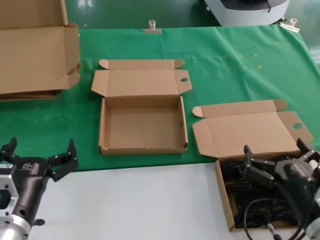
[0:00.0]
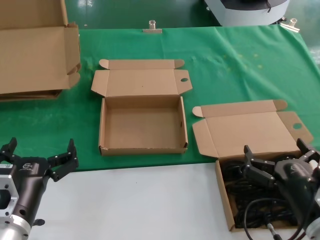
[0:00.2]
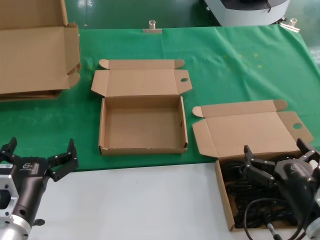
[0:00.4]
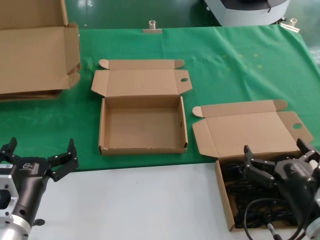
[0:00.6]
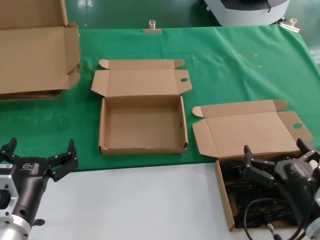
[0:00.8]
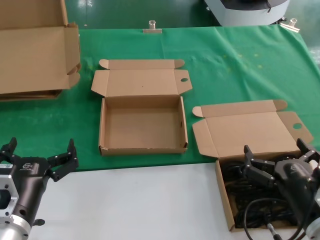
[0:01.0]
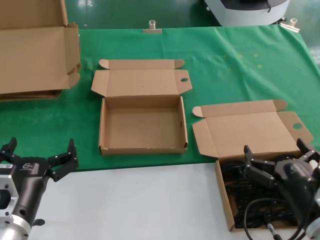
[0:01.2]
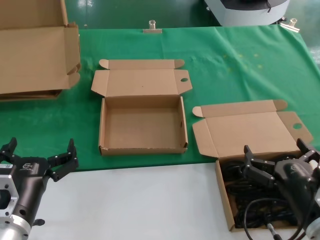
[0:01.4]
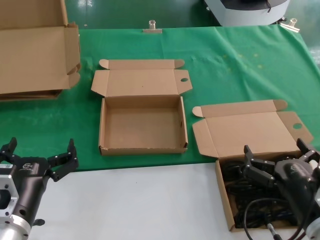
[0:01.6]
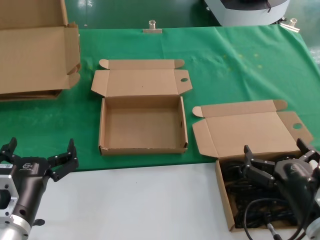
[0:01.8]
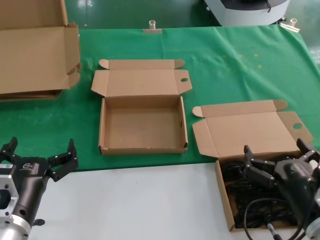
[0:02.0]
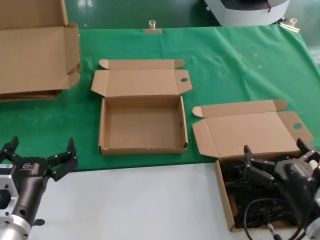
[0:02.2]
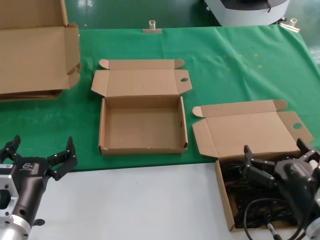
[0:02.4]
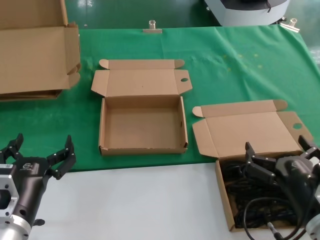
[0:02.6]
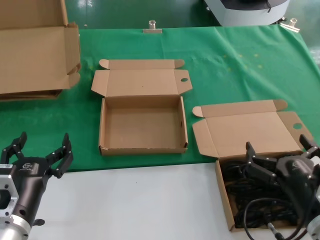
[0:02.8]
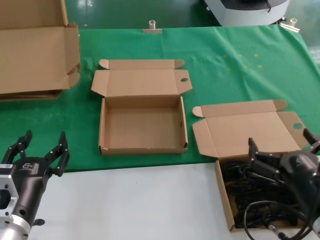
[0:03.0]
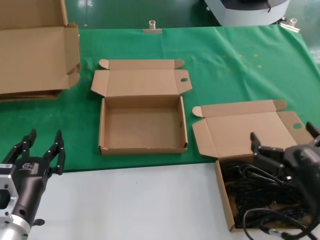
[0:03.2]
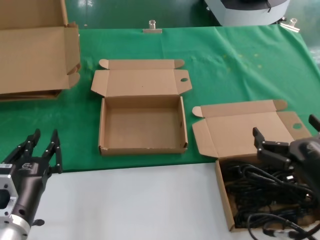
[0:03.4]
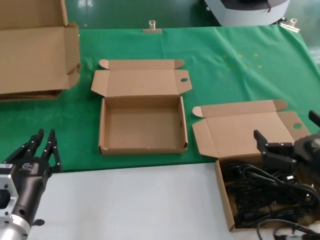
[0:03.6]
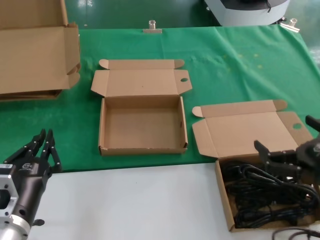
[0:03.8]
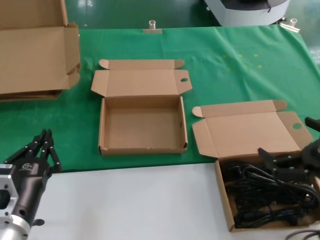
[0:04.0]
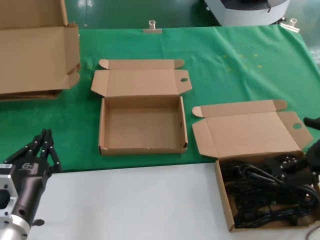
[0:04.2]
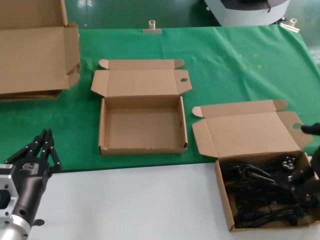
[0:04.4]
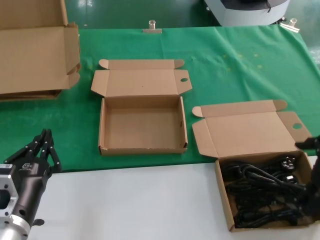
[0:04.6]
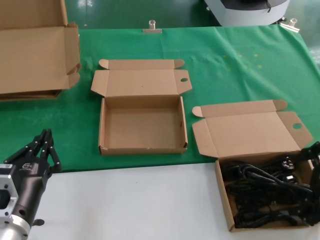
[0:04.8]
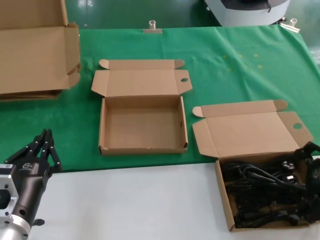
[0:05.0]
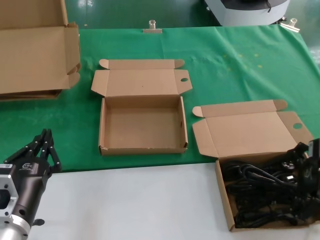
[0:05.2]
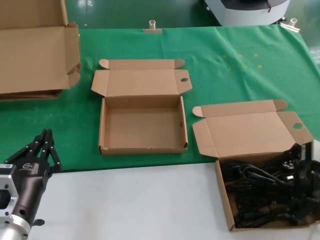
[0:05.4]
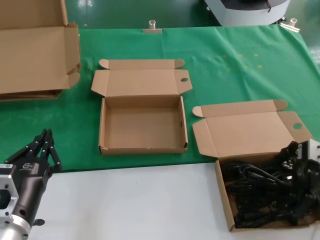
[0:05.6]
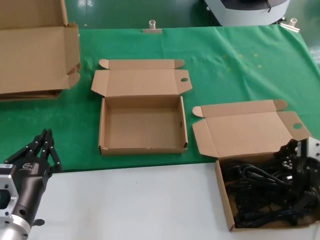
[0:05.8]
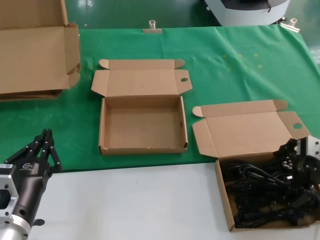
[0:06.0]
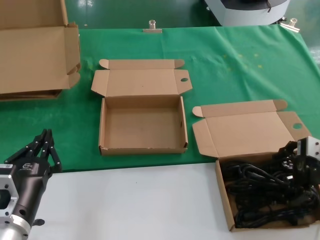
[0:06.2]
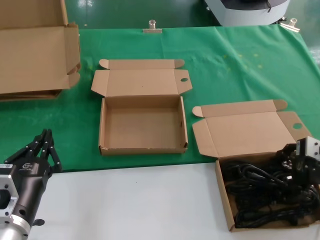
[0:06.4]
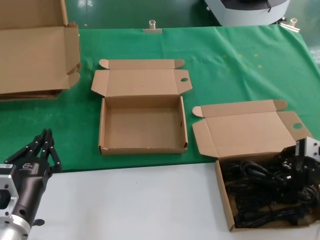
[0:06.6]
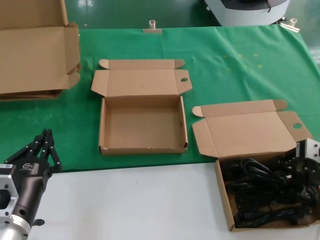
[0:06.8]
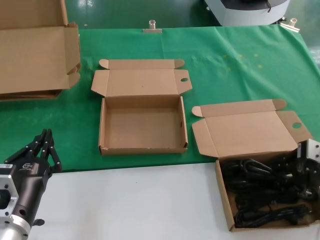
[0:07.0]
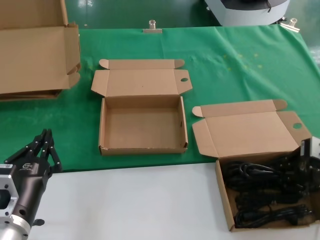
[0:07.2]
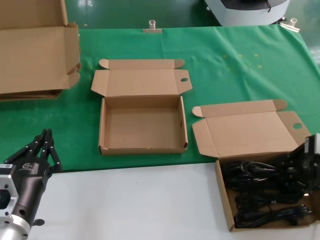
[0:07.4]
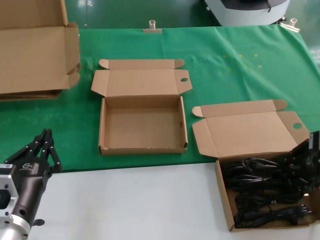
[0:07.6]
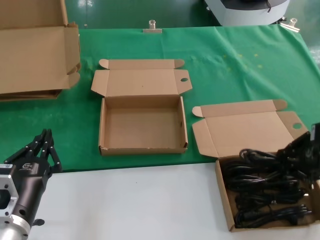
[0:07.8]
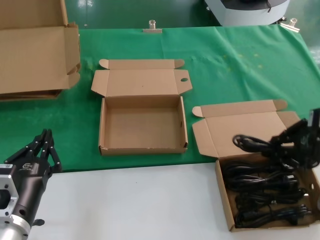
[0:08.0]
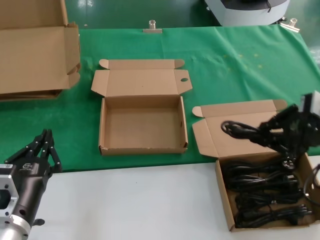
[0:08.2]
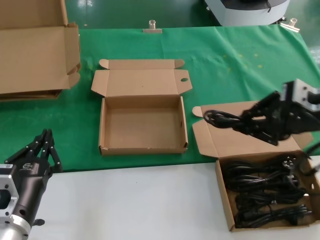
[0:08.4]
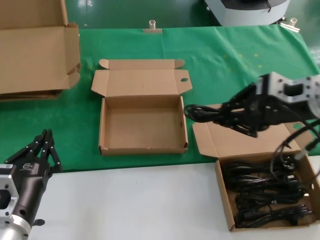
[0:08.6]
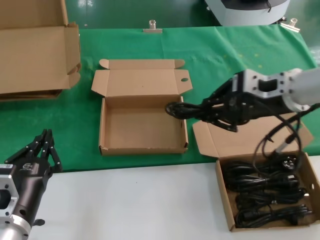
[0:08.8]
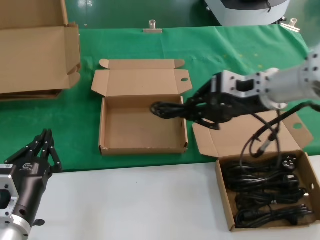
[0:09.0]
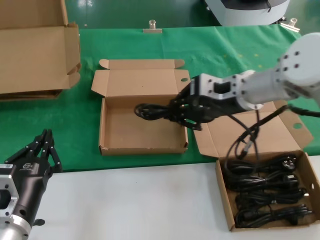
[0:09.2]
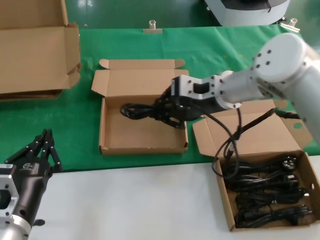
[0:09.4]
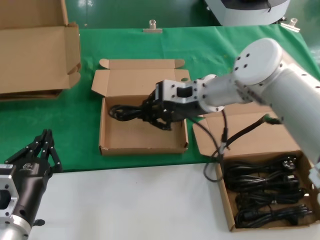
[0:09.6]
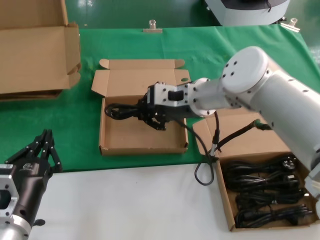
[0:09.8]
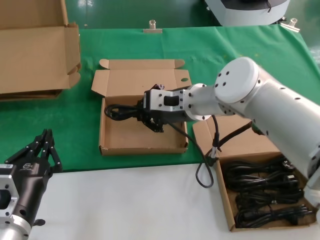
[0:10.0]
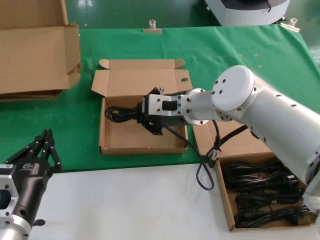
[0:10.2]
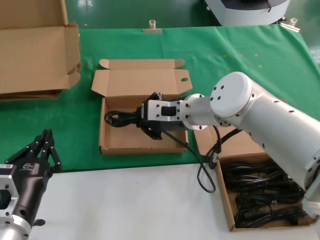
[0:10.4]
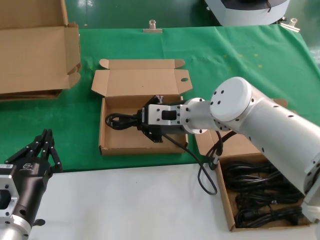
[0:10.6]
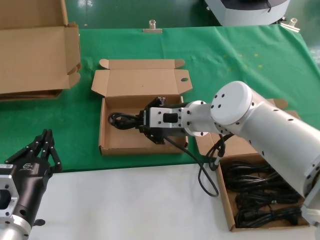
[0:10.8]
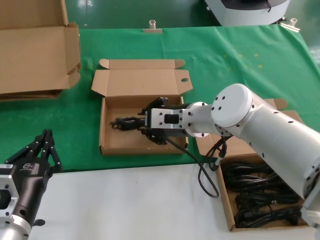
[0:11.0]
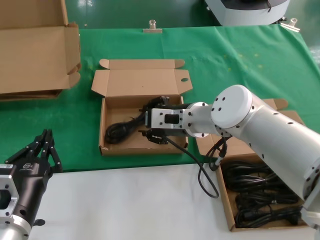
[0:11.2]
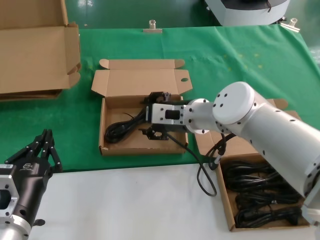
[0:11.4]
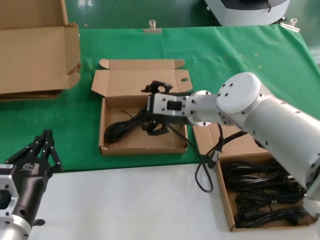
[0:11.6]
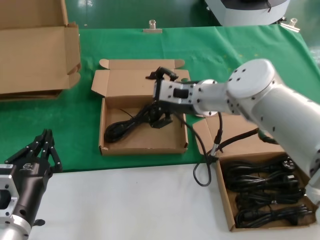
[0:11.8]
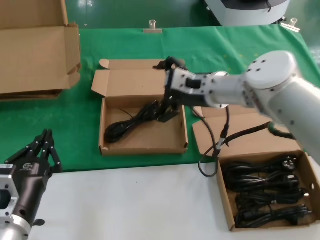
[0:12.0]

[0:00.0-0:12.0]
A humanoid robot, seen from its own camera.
Task of the whole recording: take the parts from the box containing them and put them into an empty box.
Step, 0:00.0 to 0:07.0: Grasp the data cable.
Step, 0:07.2 to 0:11.2: Place the data cable in the another box.
0:00.0 to 0:01.6: The two hands keep their place.
0:01.6 to 0:03.0: There are only small adjustments of the hands.
0:03.0 to 0:04.4: The right hand is displaced upward and to the right by roughly 15 cm.
0:04.4 to 0:06.0: The right hand goes about 15 cm forward.
0:06.0 to 0:07.6: The hands make only small movements.
0:07.6 to 0:09.0: The right hand goes about 20 cm to the left and upward.
0:09.0 to 0:10.4: The right hand moves to the left and downward, roughly 15 cm.
0:10.4 to 0:12.0: The right hand shifts by roughly 5 cm.

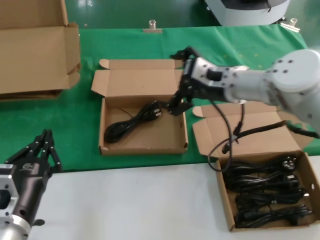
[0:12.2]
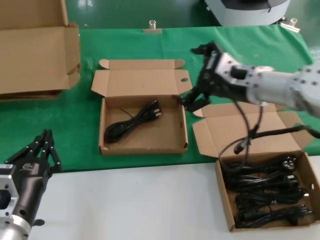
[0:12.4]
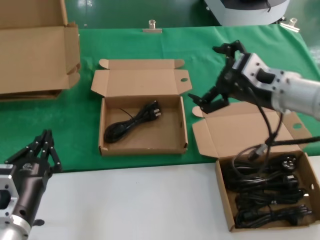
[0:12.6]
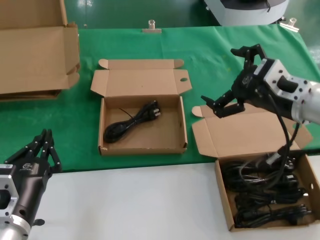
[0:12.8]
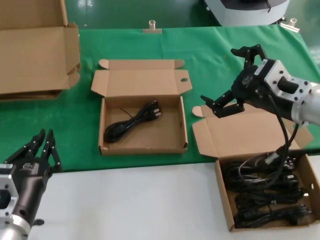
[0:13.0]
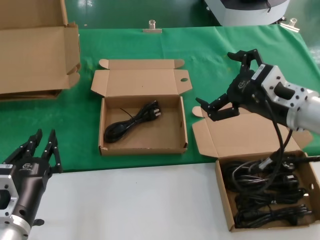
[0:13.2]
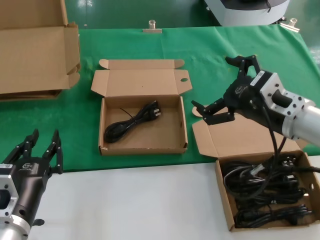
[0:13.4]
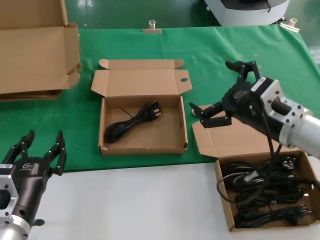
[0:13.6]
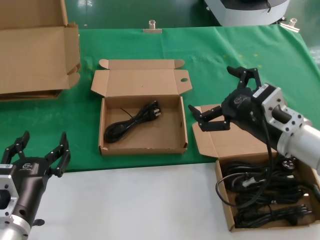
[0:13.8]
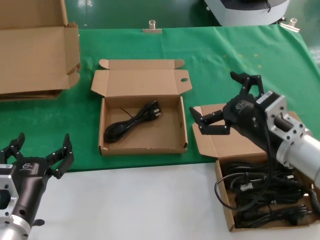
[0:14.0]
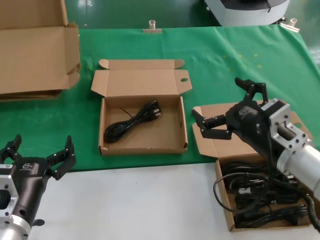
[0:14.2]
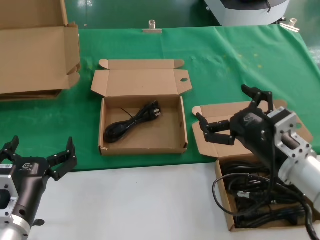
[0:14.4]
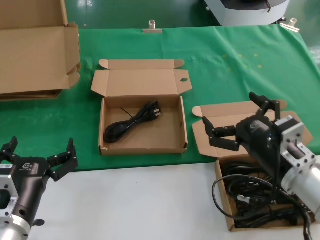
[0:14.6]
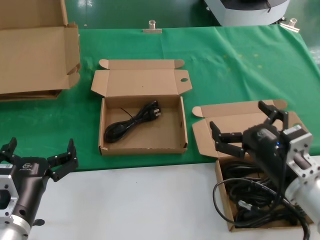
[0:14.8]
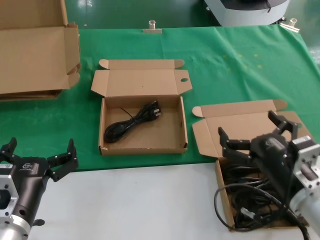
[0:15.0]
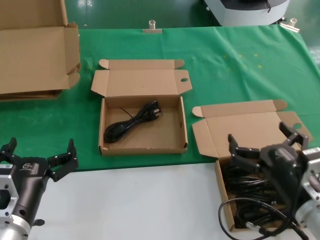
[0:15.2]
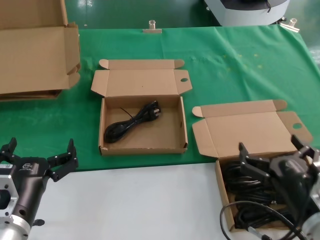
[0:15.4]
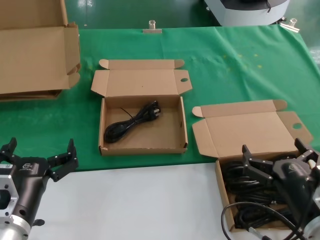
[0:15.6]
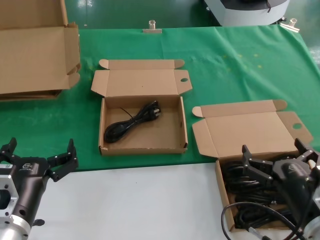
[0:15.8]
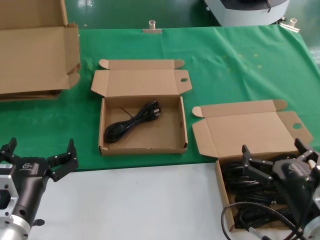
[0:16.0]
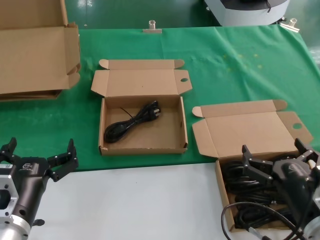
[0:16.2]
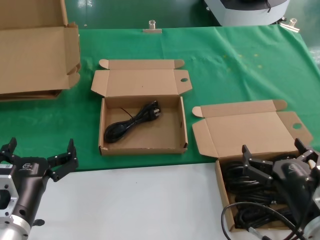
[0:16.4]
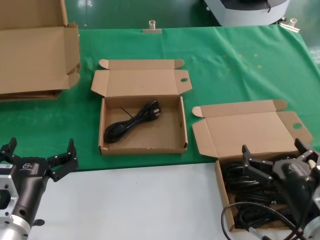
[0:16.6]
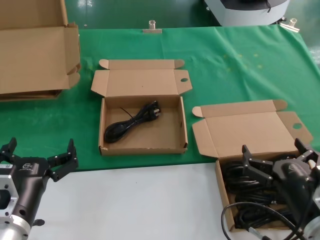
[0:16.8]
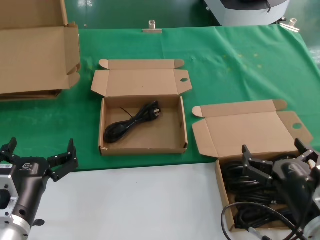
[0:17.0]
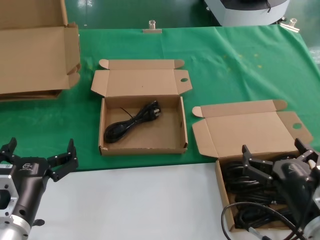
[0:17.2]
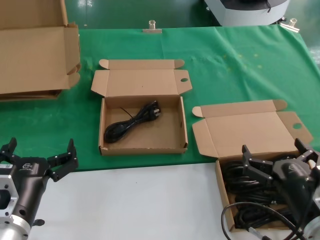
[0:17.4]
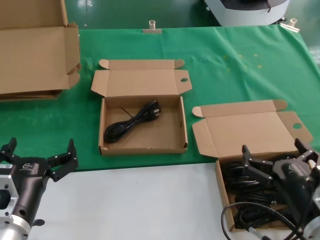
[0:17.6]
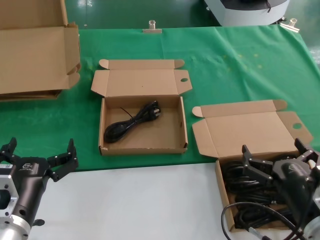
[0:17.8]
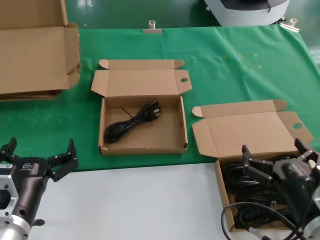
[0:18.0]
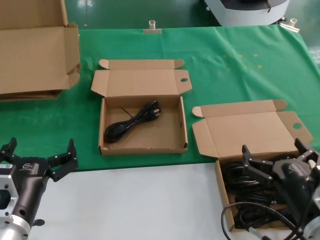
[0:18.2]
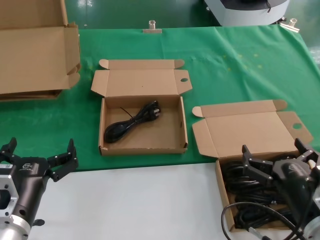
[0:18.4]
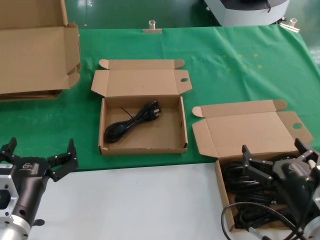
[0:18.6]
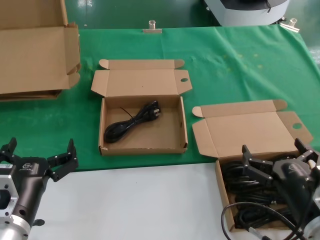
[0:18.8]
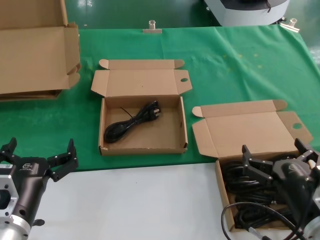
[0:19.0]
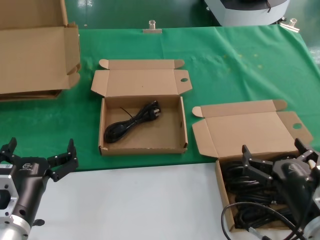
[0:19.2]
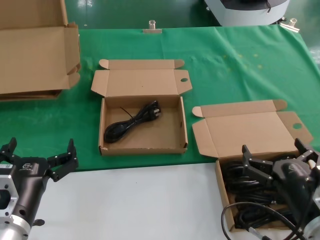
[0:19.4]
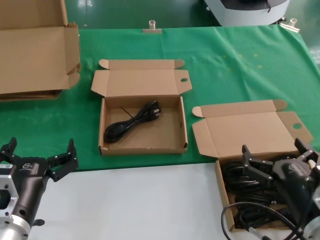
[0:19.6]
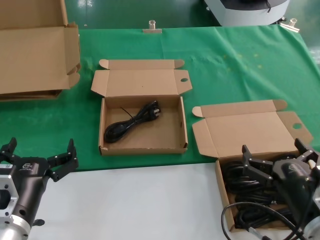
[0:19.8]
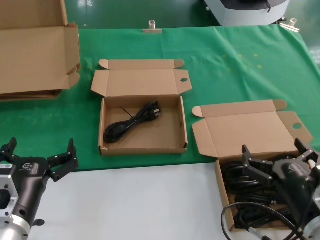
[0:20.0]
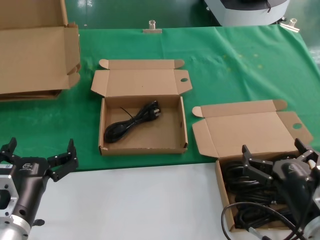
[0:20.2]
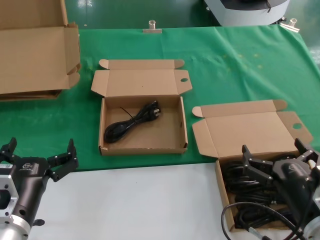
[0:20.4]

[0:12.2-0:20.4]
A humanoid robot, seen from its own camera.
Task of the whole recording: take the parts from the box containing them and put them into an empty box.
0:12.2 to 0:13.8: The right hand shifts approximately 15 cm backward, to the right and downward.
0:13.8 to 0:15.4: The right hand travels downward and backward by approximately 15 cm.
0:15.4 to 0:20.4: Both hands stay about where they are.

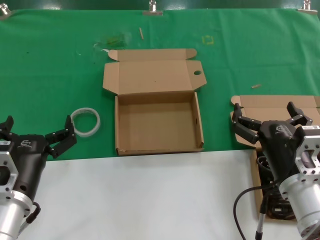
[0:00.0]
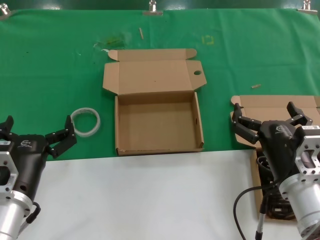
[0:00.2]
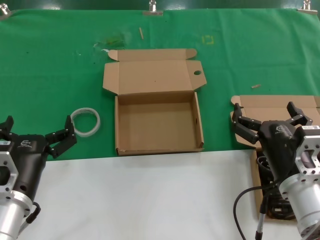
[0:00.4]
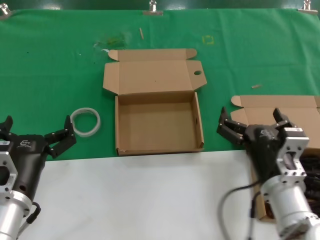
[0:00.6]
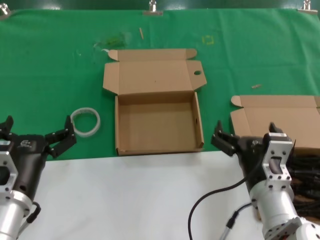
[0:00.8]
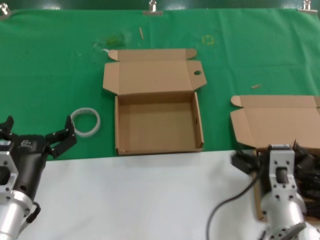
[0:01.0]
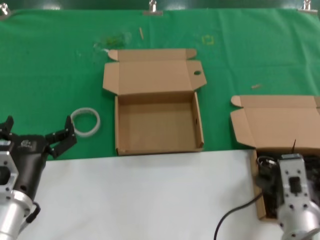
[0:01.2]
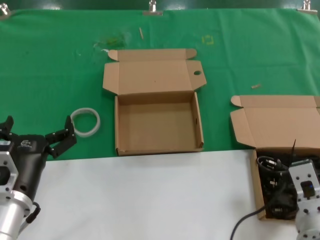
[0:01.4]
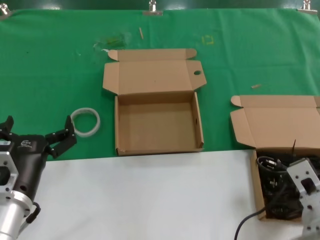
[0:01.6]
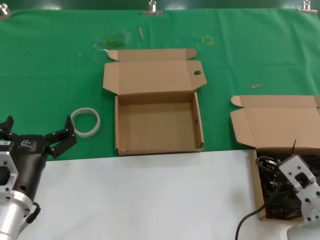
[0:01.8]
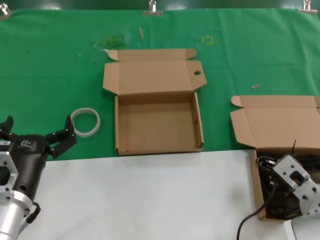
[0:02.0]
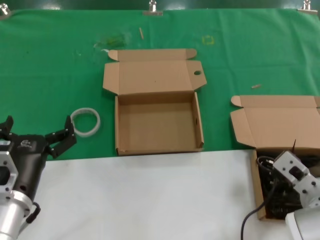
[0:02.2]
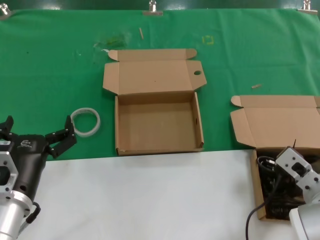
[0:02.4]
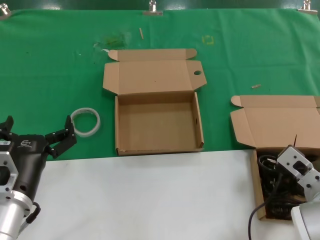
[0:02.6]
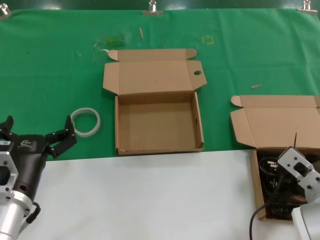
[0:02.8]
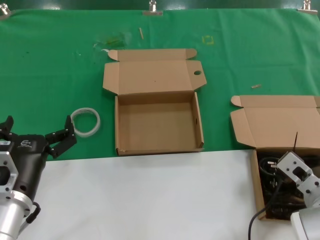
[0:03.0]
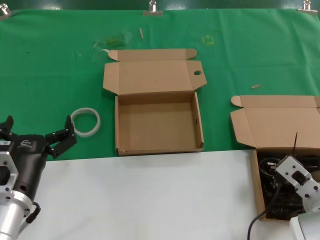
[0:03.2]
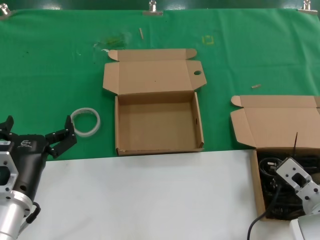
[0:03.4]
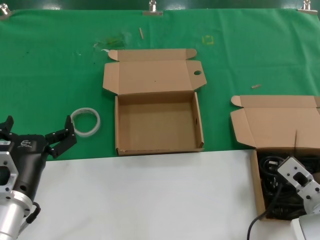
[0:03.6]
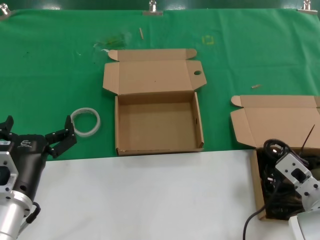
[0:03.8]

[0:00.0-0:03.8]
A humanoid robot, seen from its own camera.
Task of the whole recording: take the parts from the box containing them and put them into an empty box.
0:00.0 to 0:01.2: The right hand ends up roughly 5 cm from where it was.
0:01.2 to 0:02.6: The right hand shifts some 10 cm to the right and forward.
0:02.6 to 0:03.8: The hands stay close to where they were, moving slightly.
